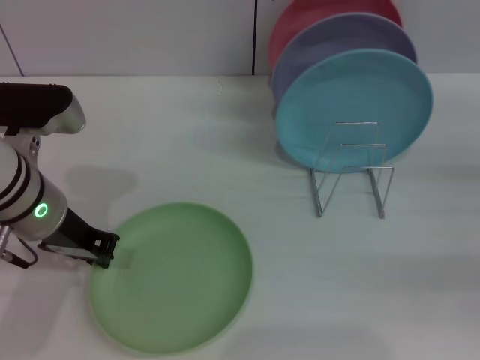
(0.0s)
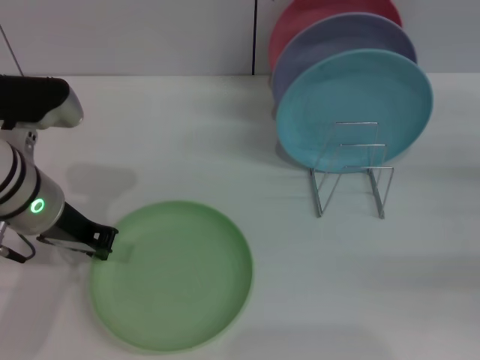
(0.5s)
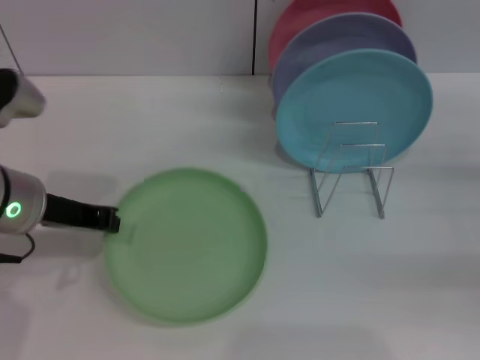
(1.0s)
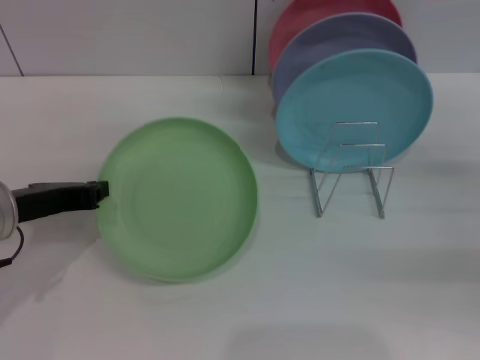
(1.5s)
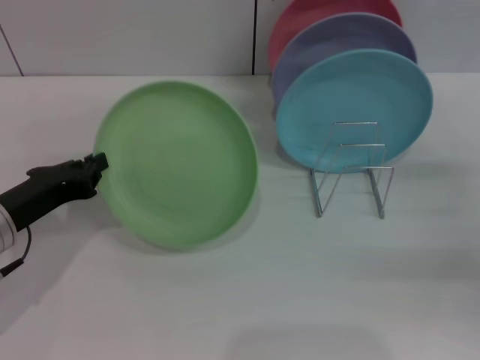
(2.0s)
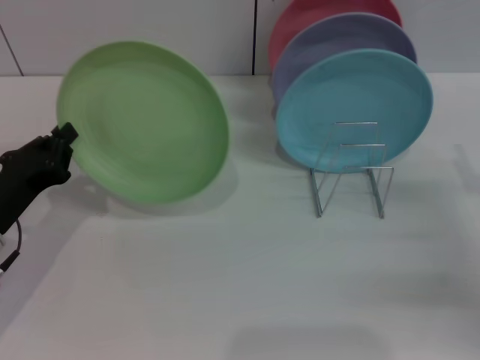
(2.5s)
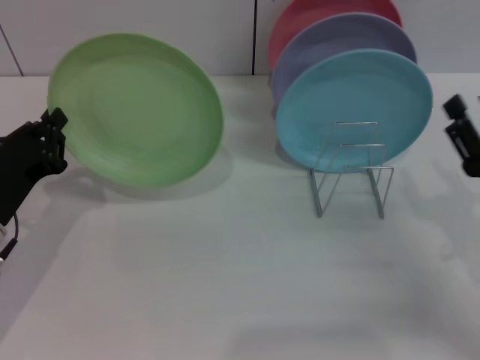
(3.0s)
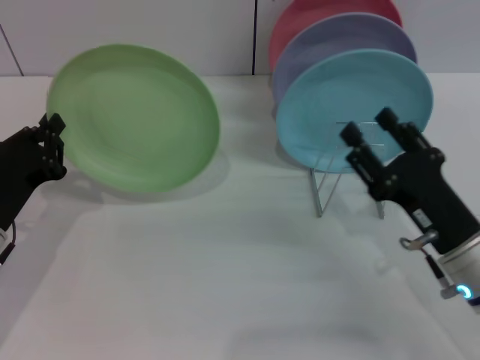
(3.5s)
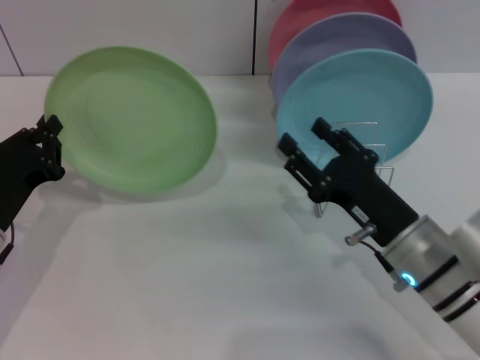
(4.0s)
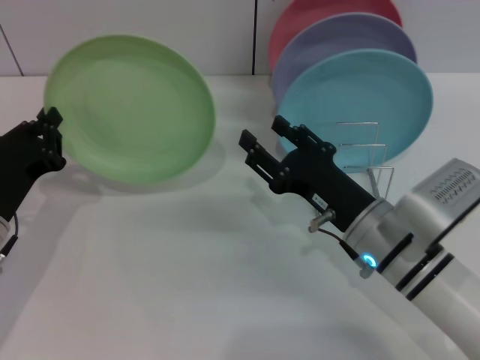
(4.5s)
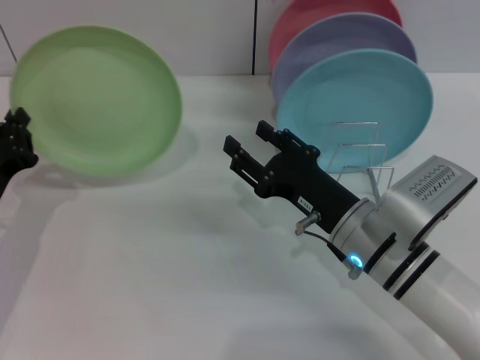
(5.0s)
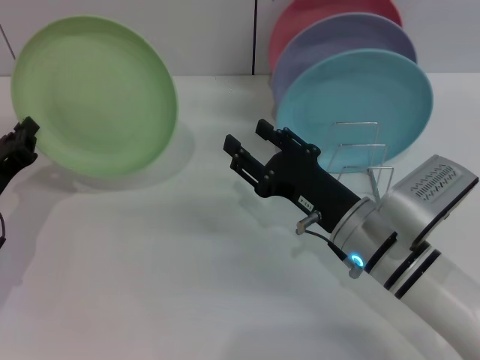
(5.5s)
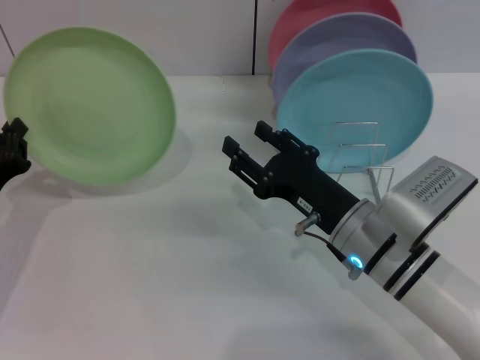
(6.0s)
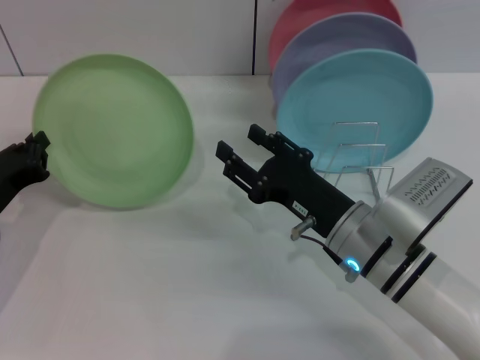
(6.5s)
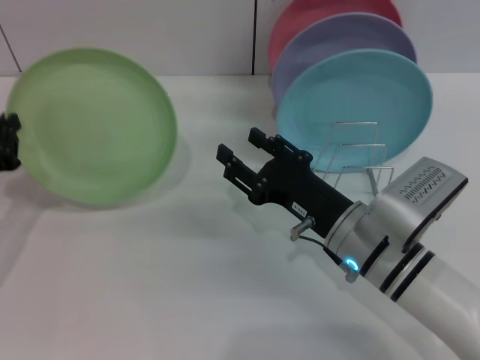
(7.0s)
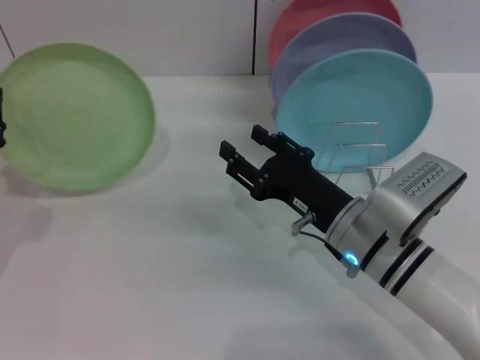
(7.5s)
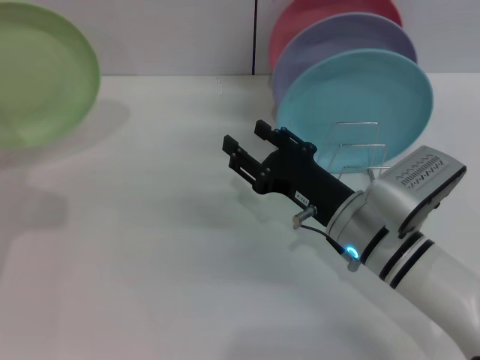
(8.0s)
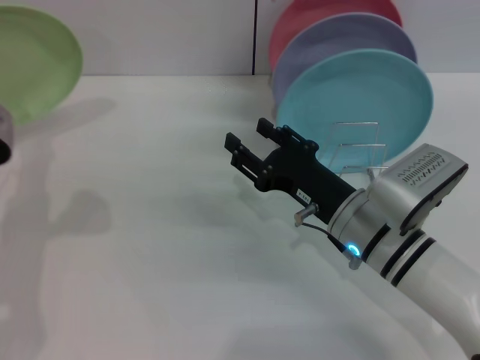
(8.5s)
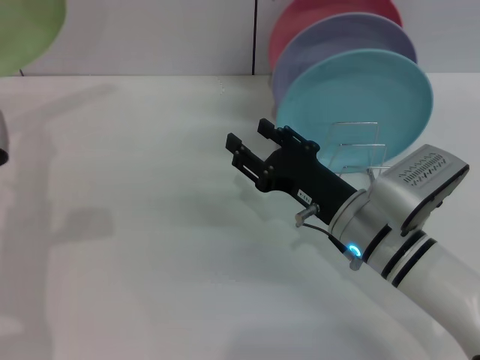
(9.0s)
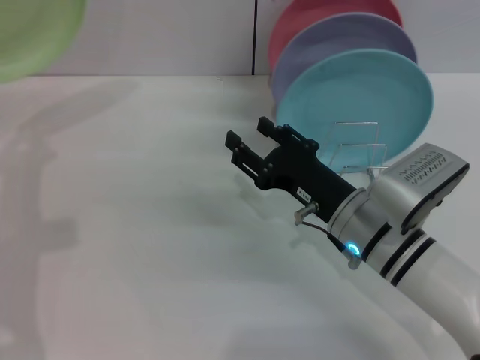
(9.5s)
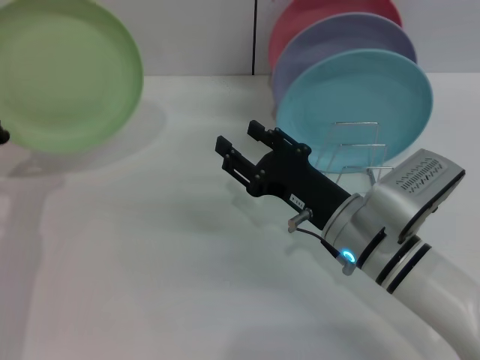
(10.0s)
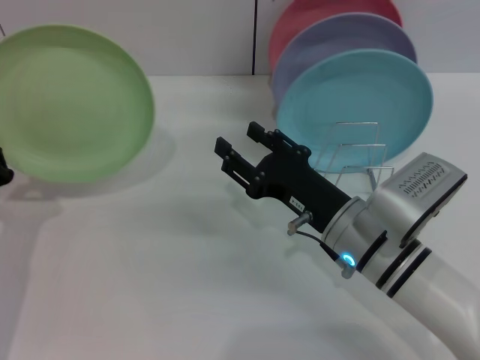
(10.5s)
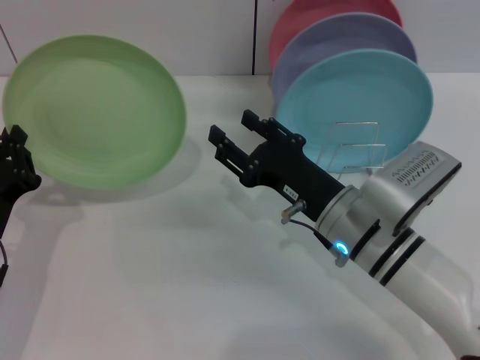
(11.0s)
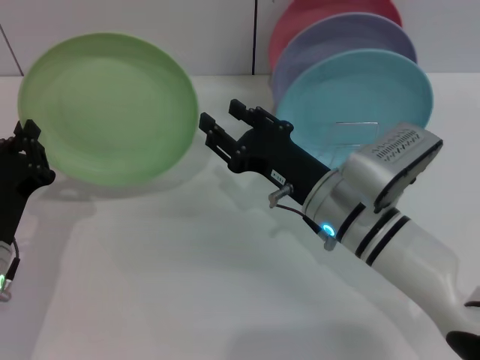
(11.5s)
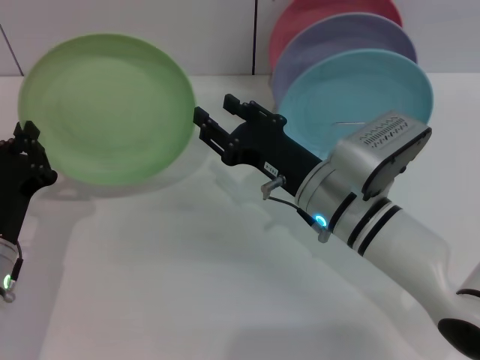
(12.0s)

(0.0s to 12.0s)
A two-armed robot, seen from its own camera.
Task of the whole recording: Grip the plate with one hand, pass it to the other, then set it on the shelf.
Step, 0.0s - 3.5s: Pick up the plate with the left gripper.
0.0s - 2.0s: The left gripper heads to the left, backward and downward, covering some 10 cm.
2.0s - 4.0s: The right gripper is displaced to the left by about 20 cm.
6.0s - 8.0s: The left gripper goes about 15 cm upward.
8.0s - 10.0s: The left gripper heads downward, covering approximately 10 cm.

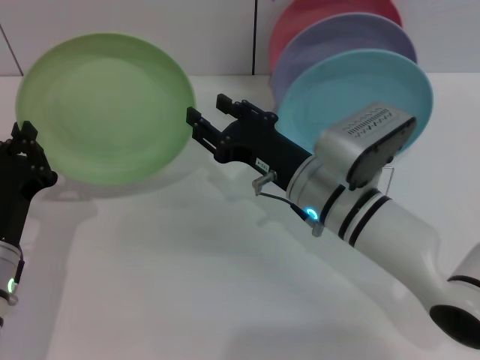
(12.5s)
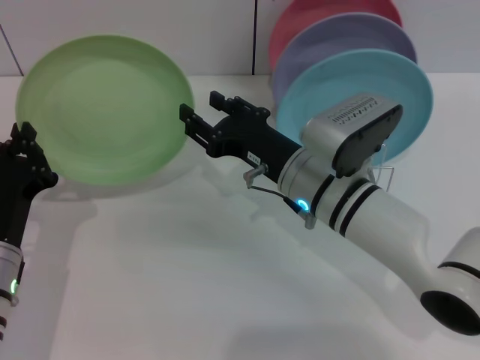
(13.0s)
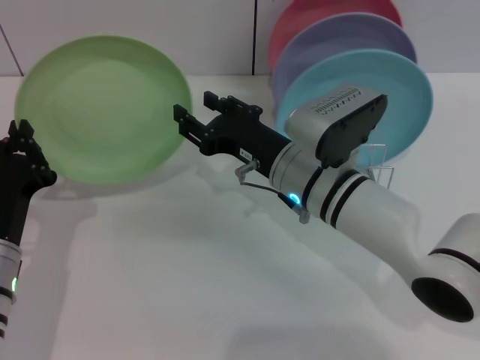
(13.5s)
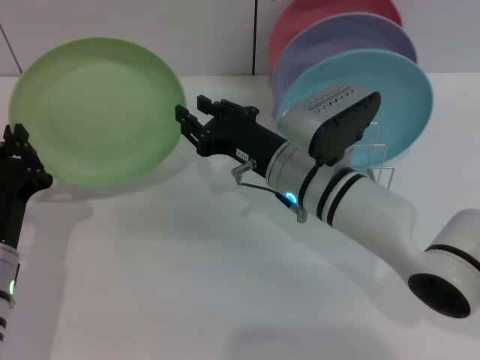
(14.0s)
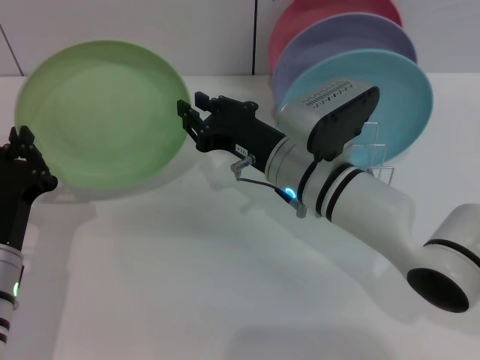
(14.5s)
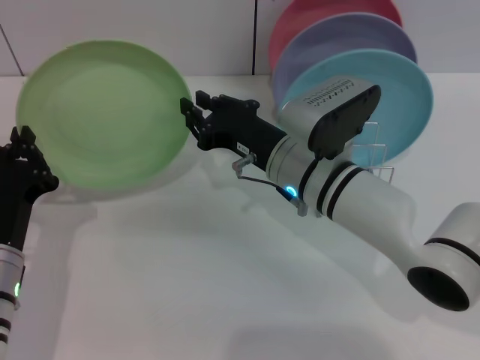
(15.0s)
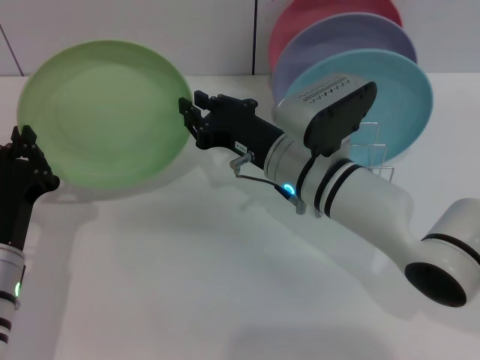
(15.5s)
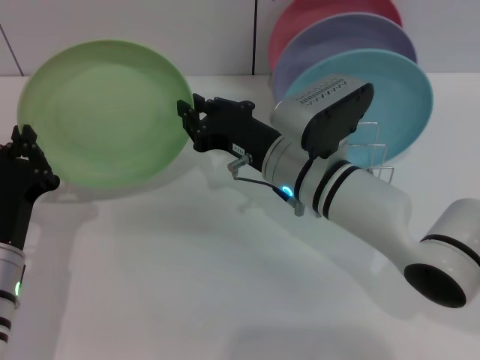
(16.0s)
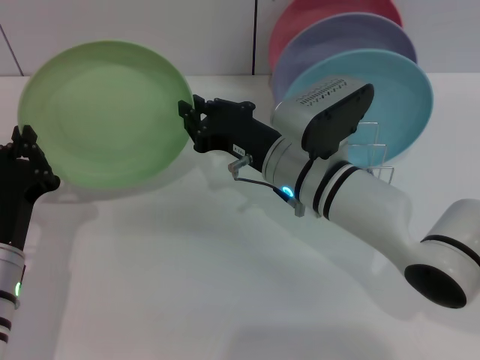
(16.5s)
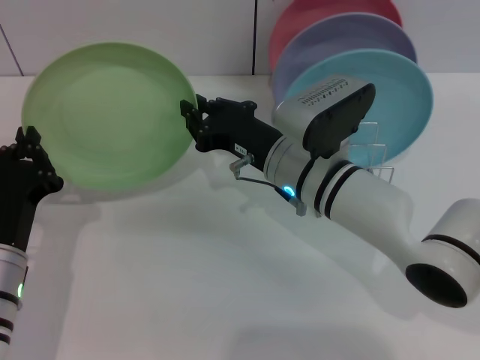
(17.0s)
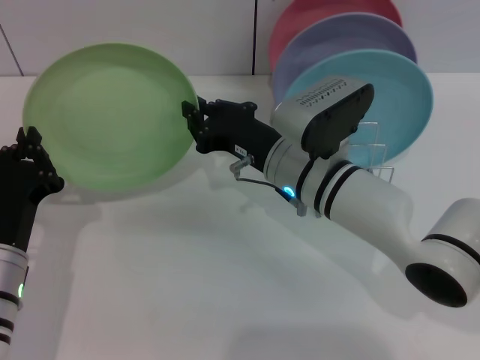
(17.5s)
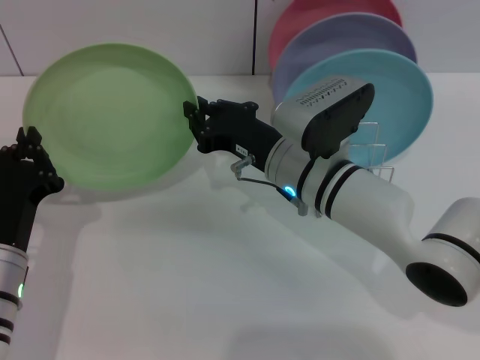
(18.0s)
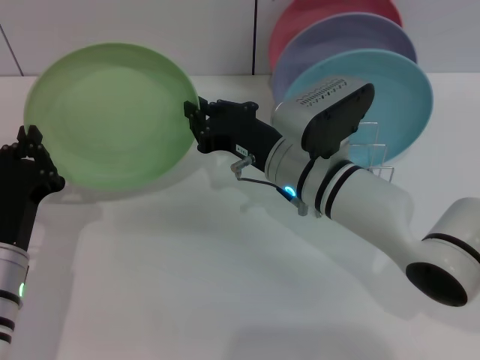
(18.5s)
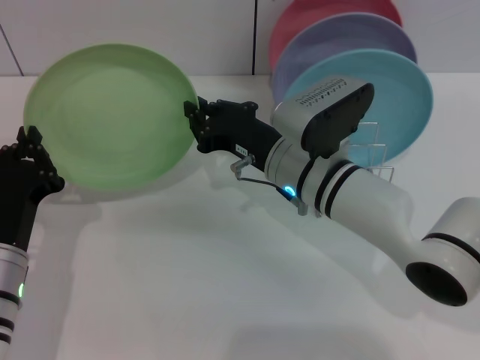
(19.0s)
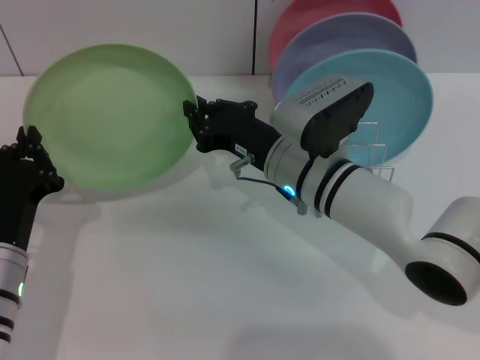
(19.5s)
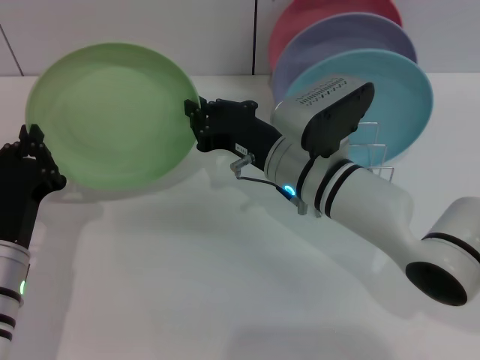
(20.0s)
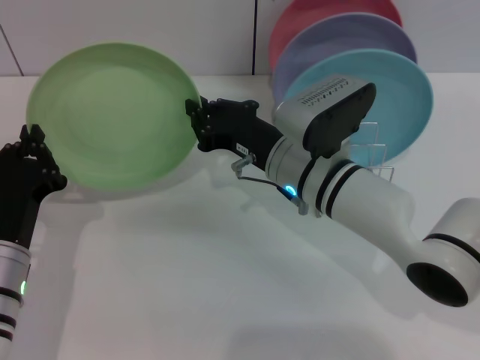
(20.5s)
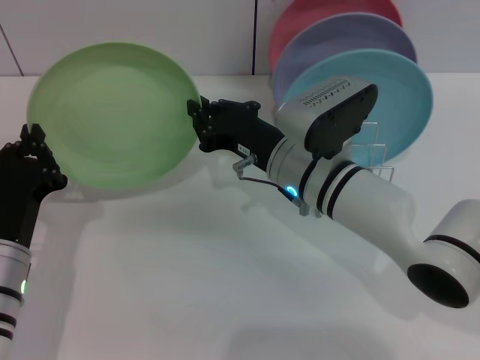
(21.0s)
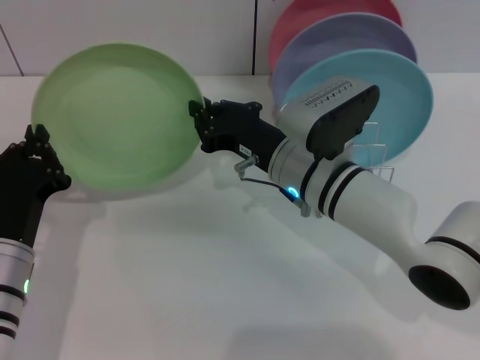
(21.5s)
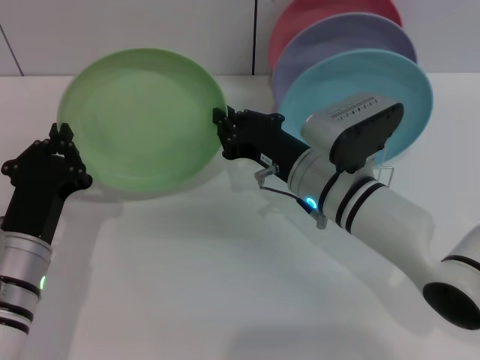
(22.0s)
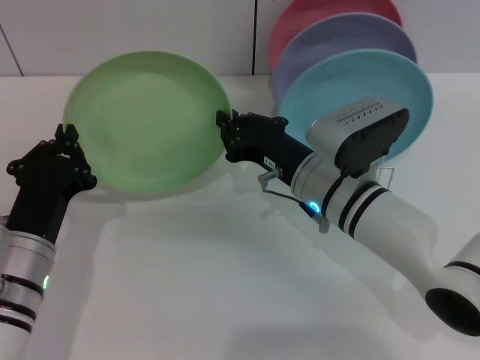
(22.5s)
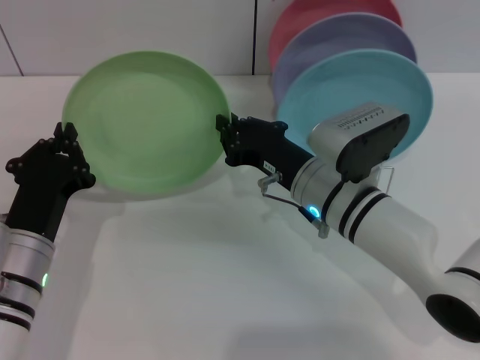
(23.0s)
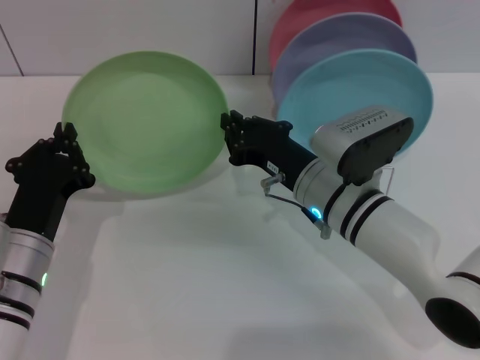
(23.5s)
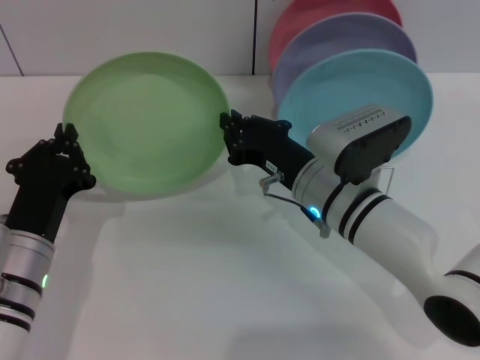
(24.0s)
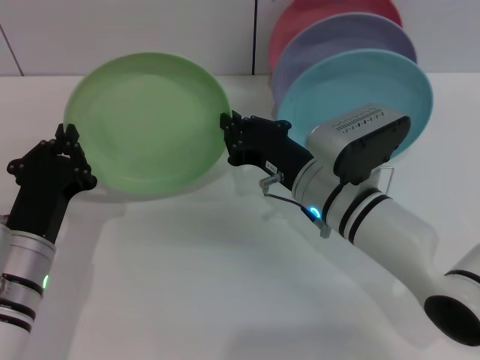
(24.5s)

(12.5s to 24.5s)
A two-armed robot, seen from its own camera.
Task of the whole recording: Grip the plate with one hand, pass it to the other, then set it on the shelf.
12.5s - 14.5s: The grippers move only a little.
14.5s - 20.5s: Both grippers stay about where they are.
22.5s - 24.5s: The two grippers keep their place.

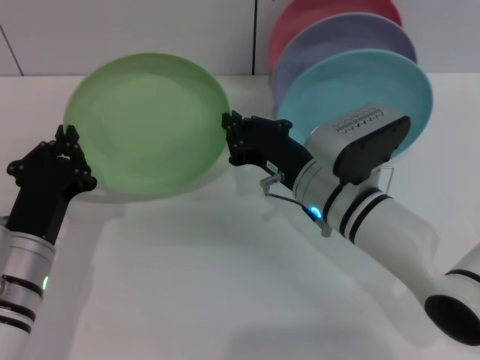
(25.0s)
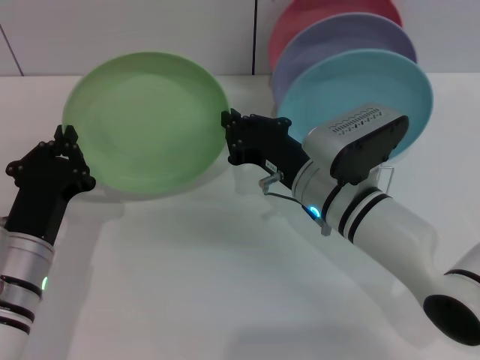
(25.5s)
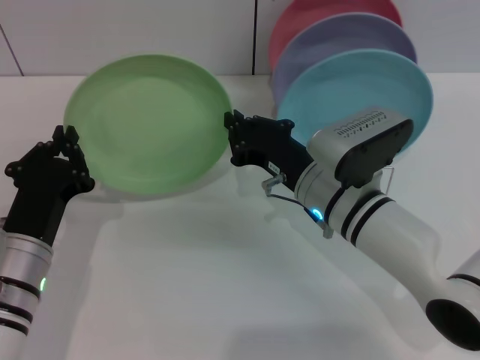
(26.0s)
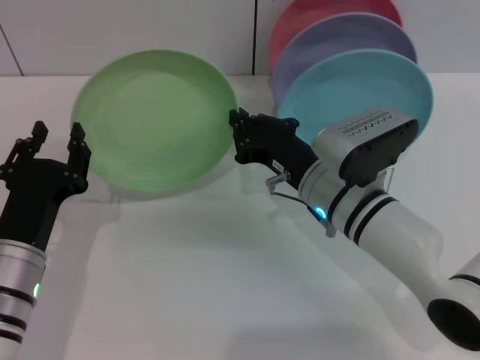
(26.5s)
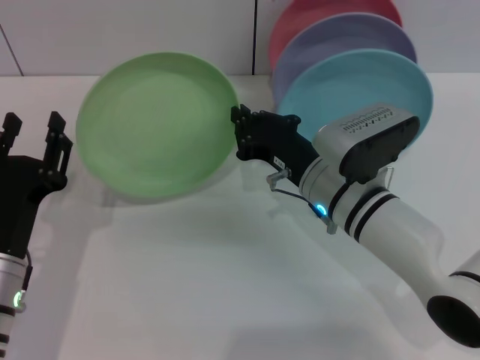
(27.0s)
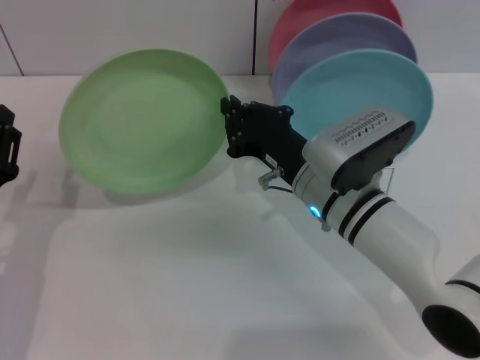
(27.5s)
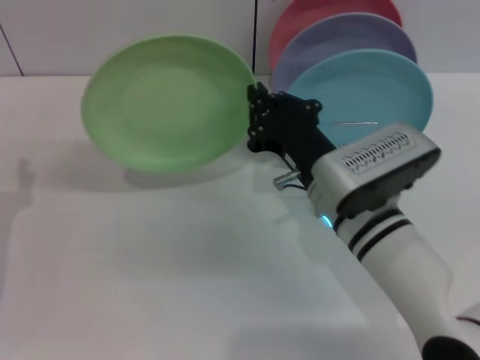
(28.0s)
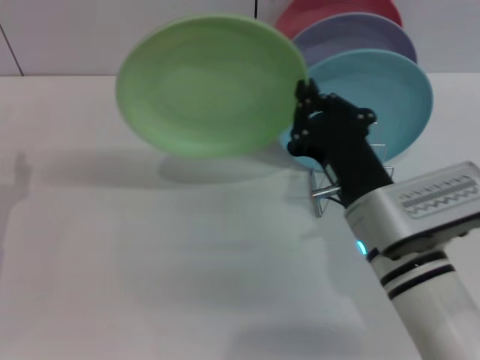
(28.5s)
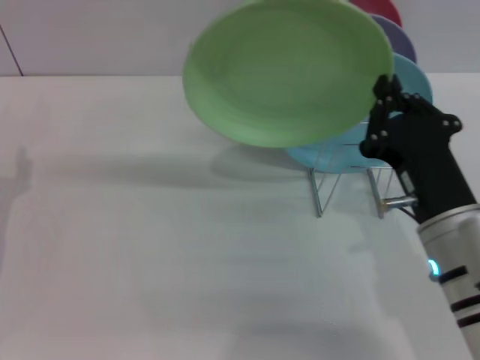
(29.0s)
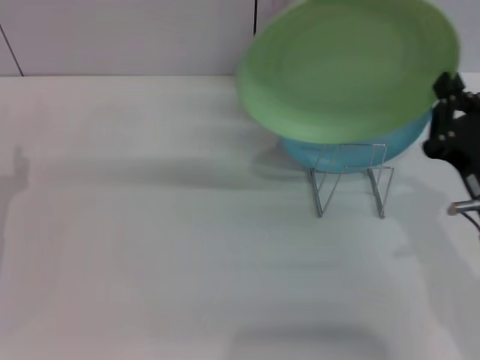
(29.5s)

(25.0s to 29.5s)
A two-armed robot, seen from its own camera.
Task of the whole recording: Grip the plate with one hand, pass it to the other, then set it on the shelf.
Step, 25.0s - 27.5s: Pass the plate from the left gripper to the right gripper.
25.0s - 27.0s: The left gripper opens up.
27.0s - 29.5s: The left gripper heads to the left and forward, covering approximately 10 cm, while the right gripper travels backward and to the right by some 15 cm.
